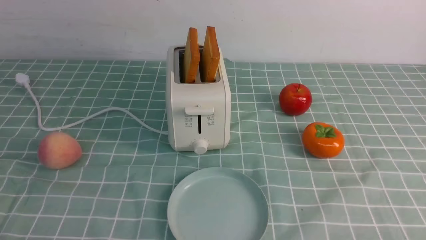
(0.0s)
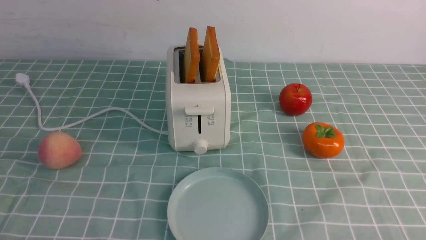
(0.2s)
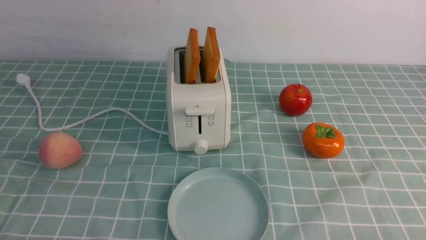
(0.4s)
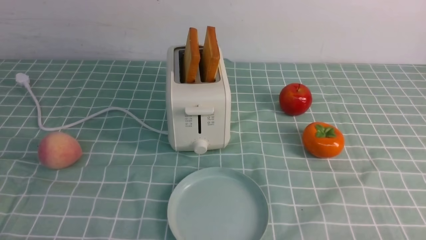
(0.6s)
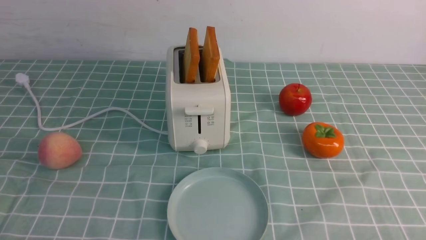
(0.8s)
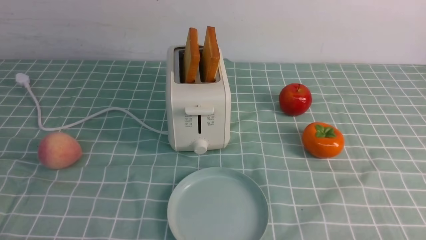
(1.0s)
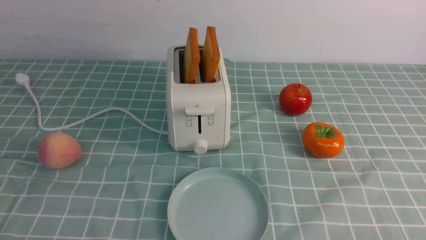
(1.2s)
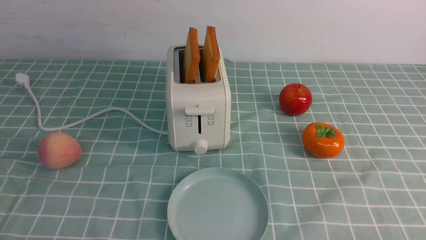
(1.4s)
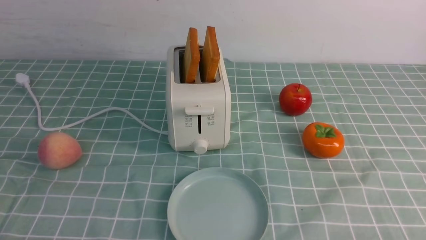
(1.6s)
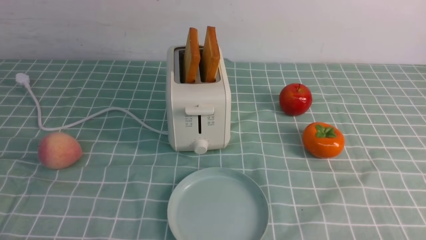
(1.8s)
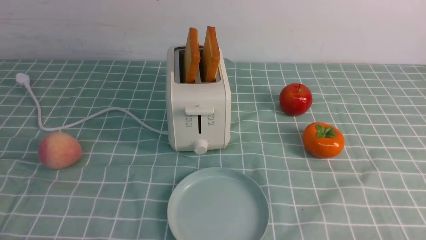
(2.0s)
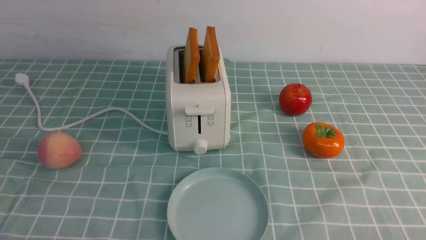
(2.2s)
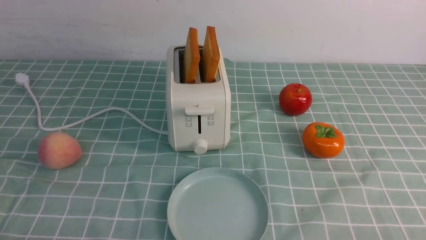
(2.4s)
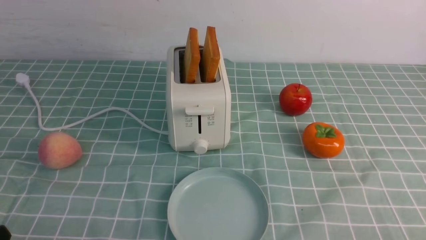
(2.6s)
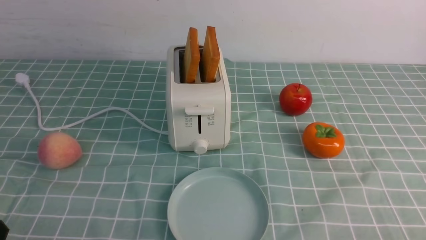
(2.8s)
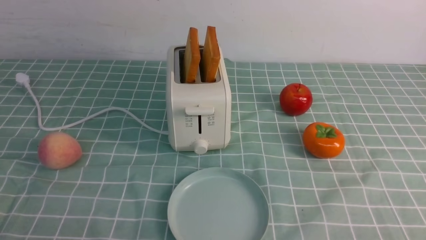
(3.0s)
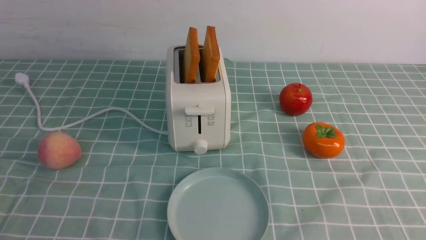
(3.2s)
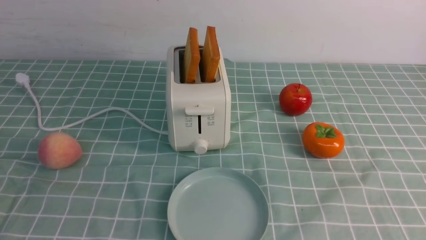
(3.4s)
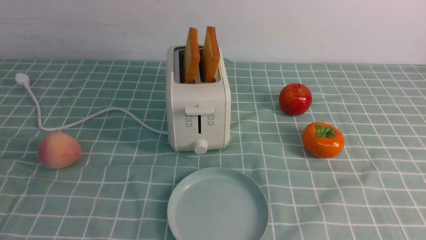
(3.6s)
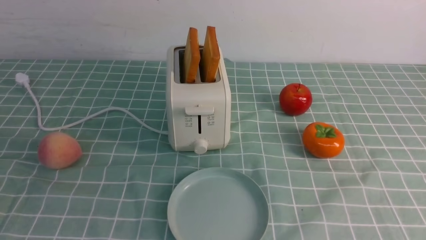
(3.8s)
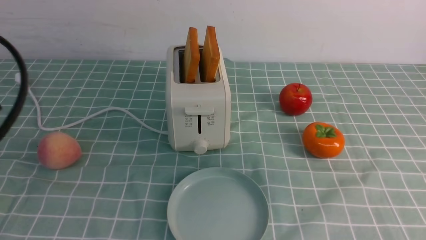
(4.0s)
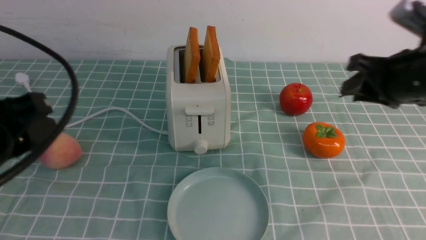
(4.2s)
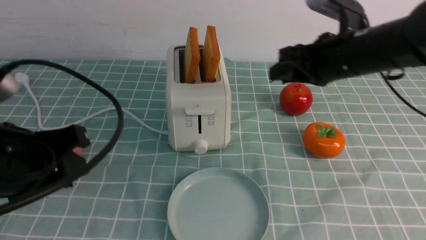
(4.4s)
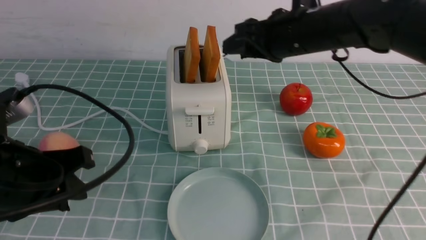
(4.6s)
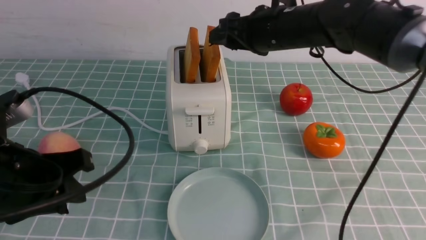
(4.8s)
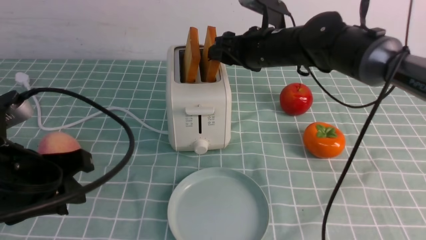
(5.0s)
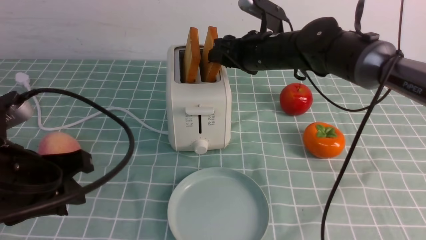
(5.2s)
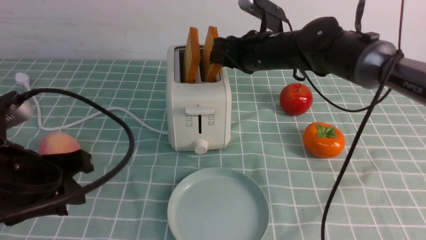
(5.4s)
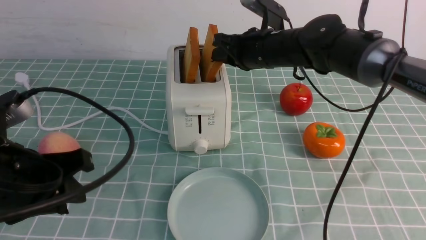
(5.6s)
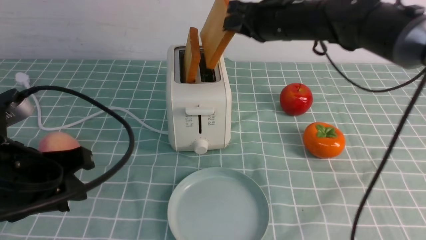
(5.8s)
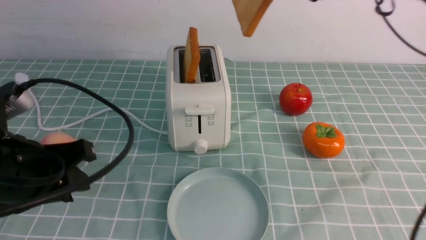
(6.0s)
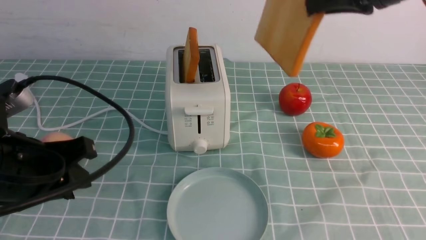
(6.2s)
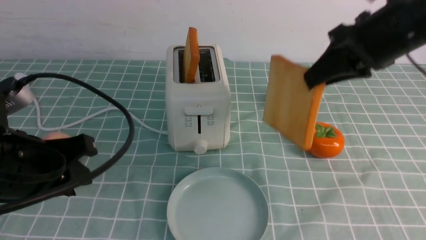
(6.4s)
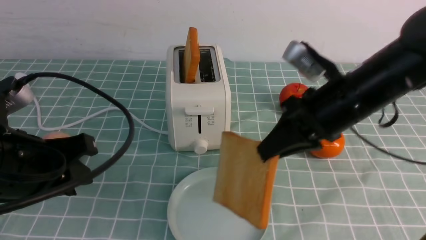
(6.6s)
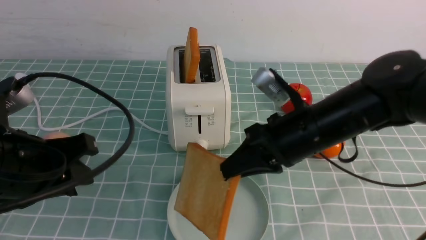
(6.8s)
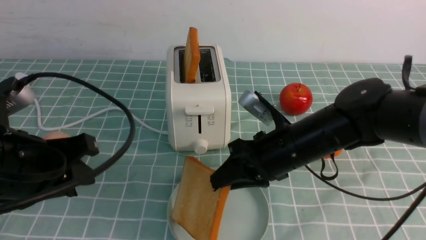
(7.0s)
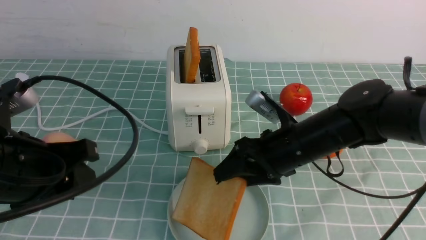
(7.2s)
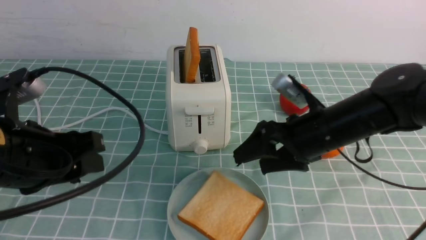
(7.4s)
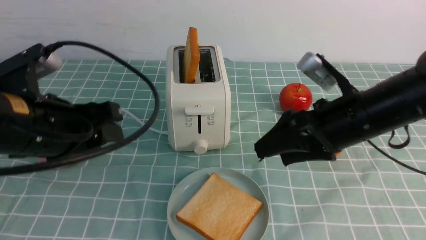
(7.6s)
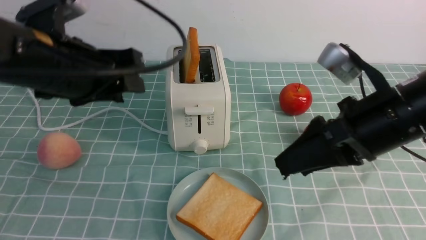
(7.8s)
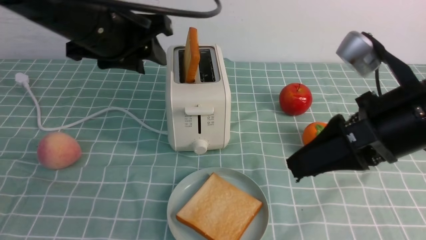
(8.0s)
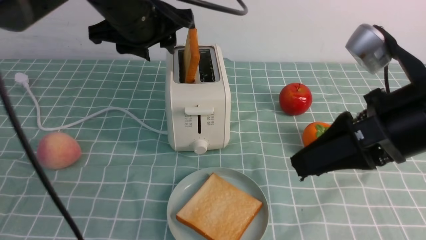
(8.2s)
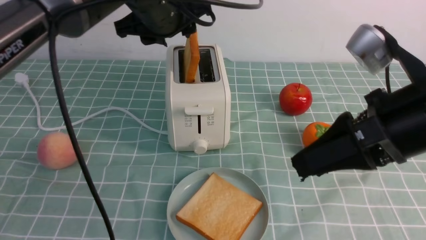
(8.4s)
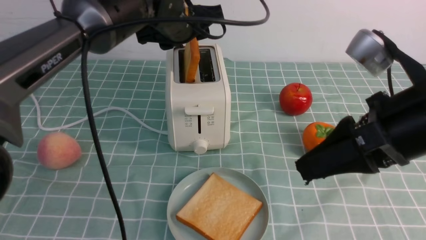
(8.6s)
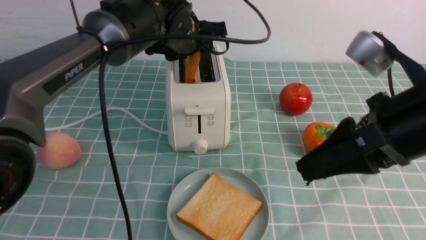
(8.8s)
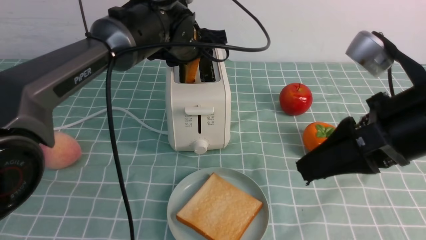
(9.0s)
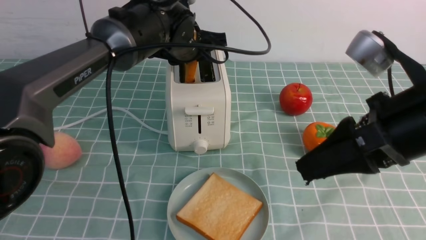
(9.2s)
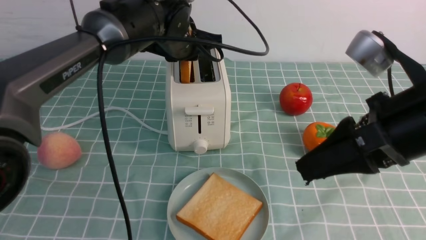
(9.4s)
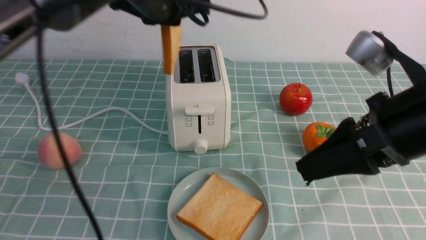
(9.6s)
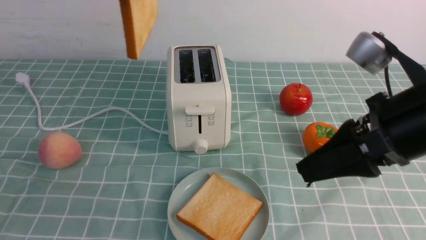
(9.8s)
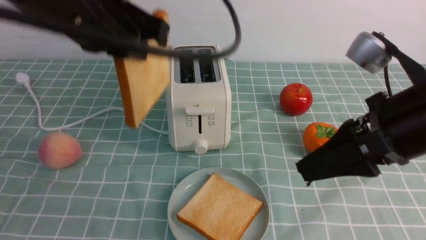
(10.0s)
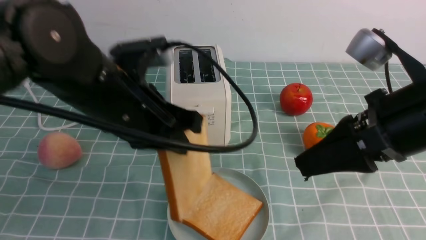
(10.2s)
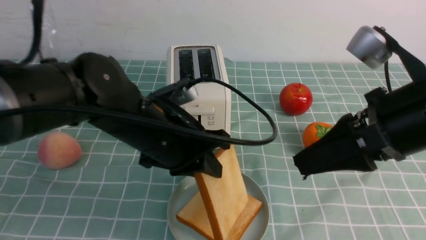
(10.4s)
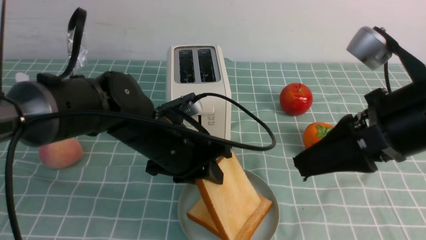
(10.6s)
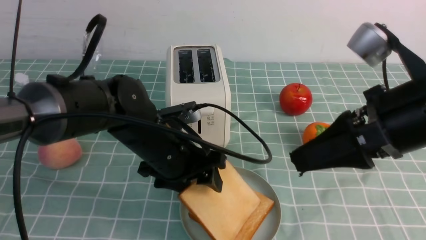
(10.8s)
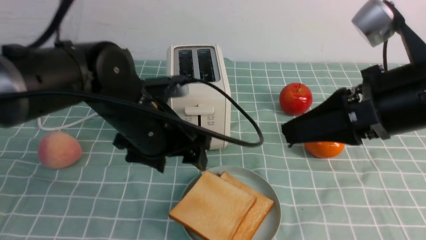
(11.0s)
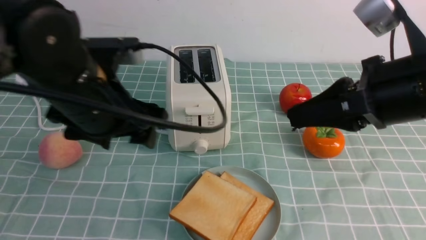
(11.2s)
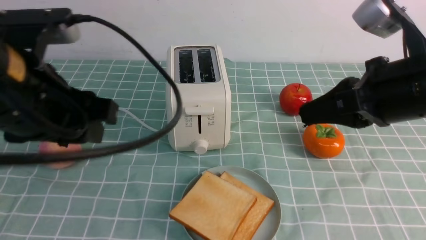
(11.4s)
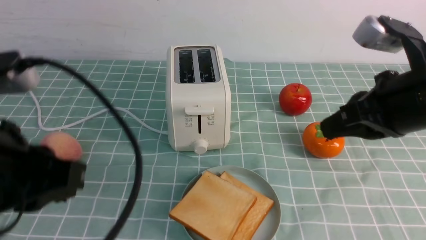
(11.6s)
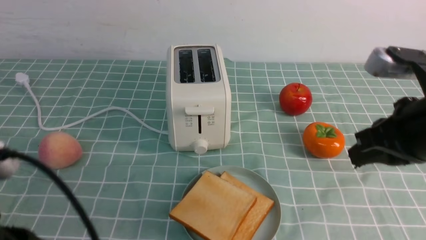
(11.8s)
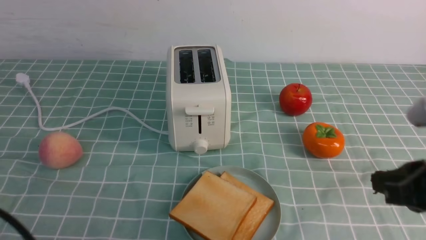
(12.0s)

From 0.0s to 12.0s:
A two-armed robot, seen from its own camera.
Task of the whole recording: take toasted bread from bread machine on blue coffee table place on plate.
Step, from 0.0s to 5.6s: use the right arm to take out a slice of bread.
Step, from 6.0s to 7.4s: use the right arm to put a slice of bread into the plate.
Step, from 7.8s to 9.4s: use the left arm to take out a slice of bread.
Step, from 9.6s to 11.2s: use the left arm to put a slice of bread into the empty plate.
From 0.0s to 1.6s: Both grippers stay about where they are.
From 3.0s to 4.4s: The left gripper travels forward, upward and to the right by approximately 15 cm; the right gripper is displaced forward and to the left by approximately 35 cm.
From 4.4s to 6.0s: The right gripper shifts about 5 cm upward.
From 6.0s to 7.6s: The right gripper goes about 15 cm downward and backward, and opens. Meanwhile the left gripper shifts about 5 cm forward.
From 7.6s to 9.0s: The left gripper is displaced forward and to the right by approximately 25 cm; the right gripper goes roughly 10 cm backward and upward.
From 9.0s to 10.4s: The left gripper is displaced backward by roughly 15 cm, and closes its fingers.
From 10.4s to 12.0s: The left gripper moves backward and to the left, about 25 cm, and opens, then closes again; the right gripper heads downward, to the right and backward, covering some 10 cm, and closes up.

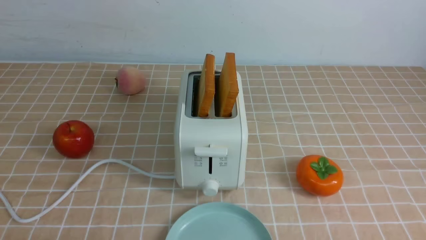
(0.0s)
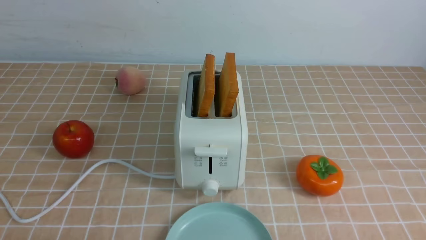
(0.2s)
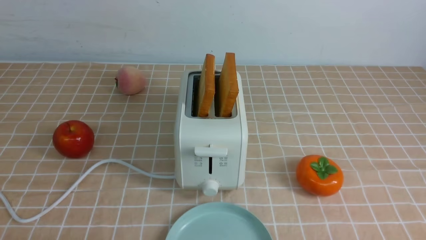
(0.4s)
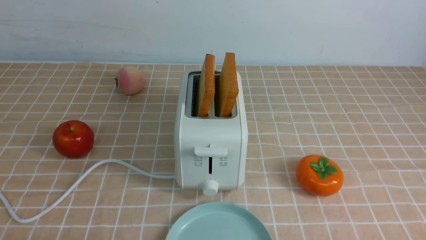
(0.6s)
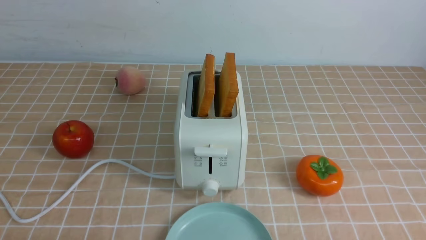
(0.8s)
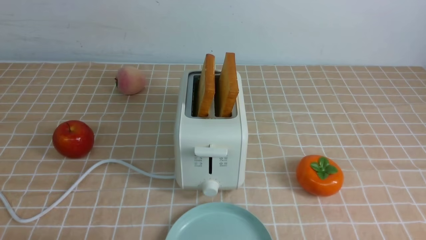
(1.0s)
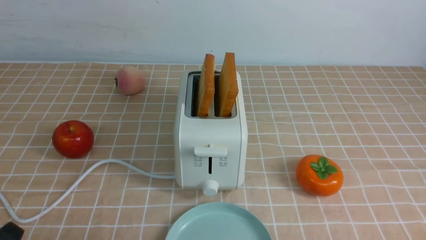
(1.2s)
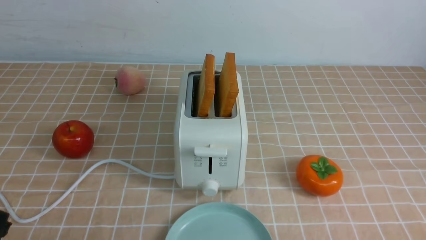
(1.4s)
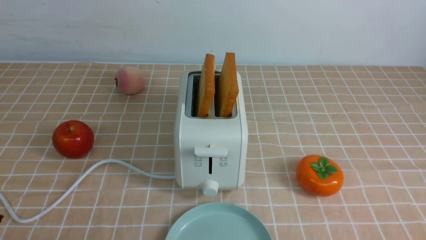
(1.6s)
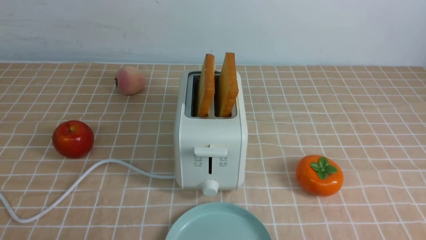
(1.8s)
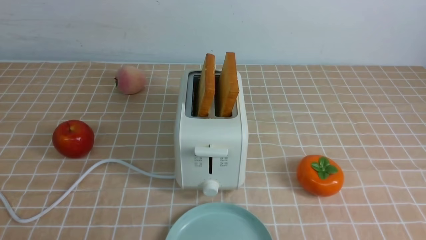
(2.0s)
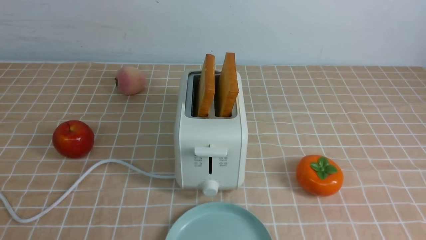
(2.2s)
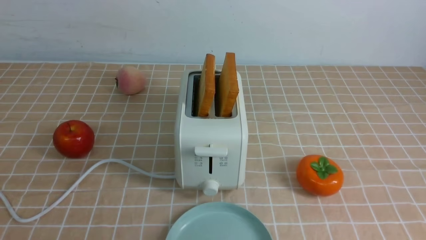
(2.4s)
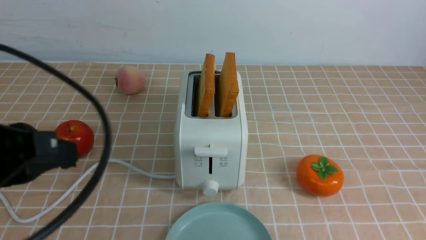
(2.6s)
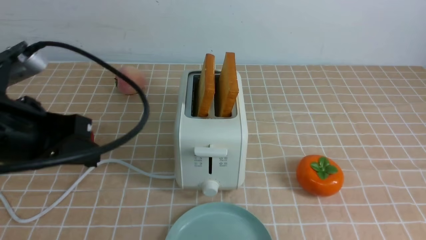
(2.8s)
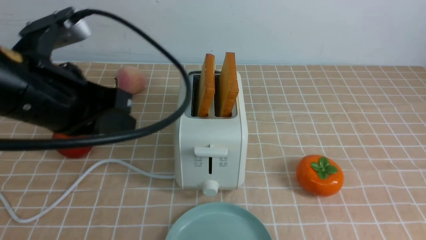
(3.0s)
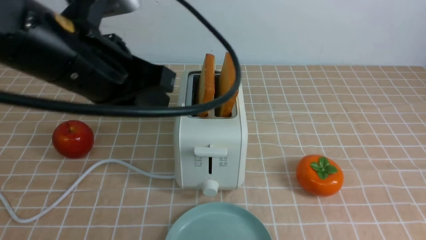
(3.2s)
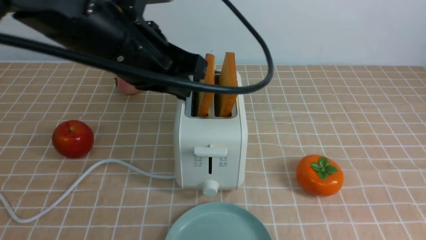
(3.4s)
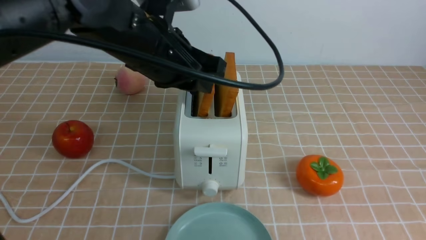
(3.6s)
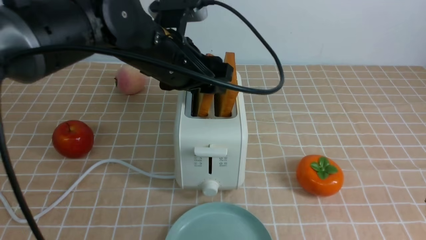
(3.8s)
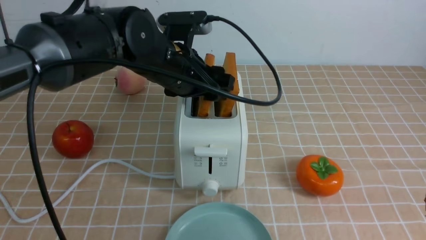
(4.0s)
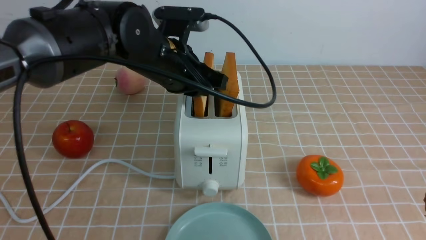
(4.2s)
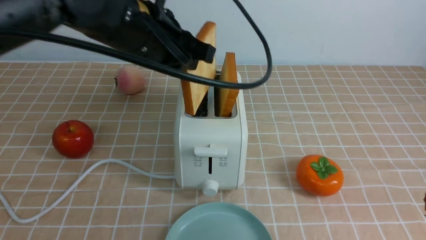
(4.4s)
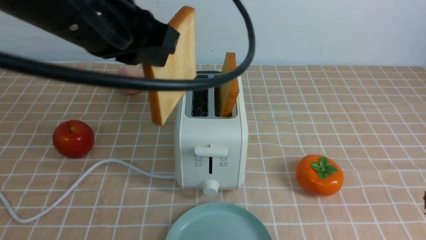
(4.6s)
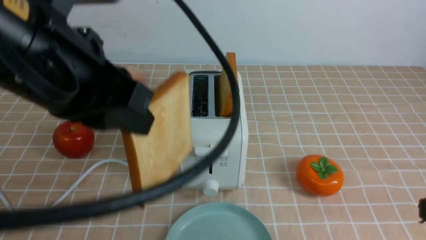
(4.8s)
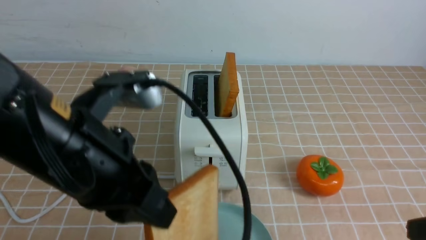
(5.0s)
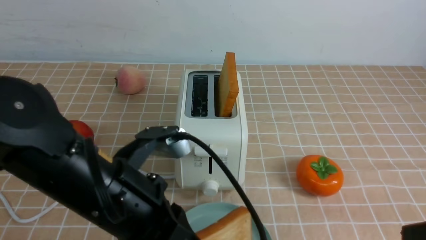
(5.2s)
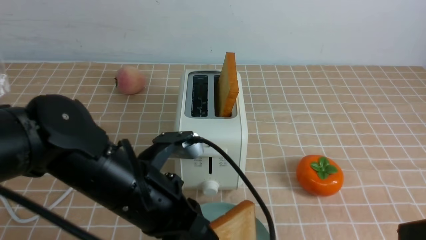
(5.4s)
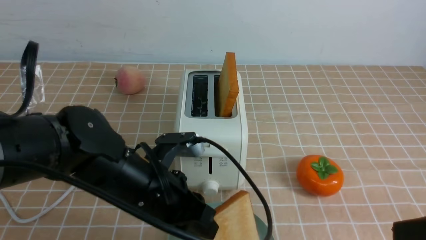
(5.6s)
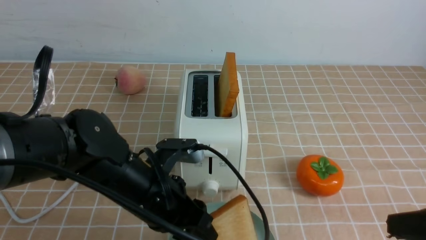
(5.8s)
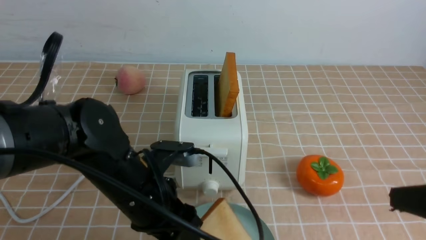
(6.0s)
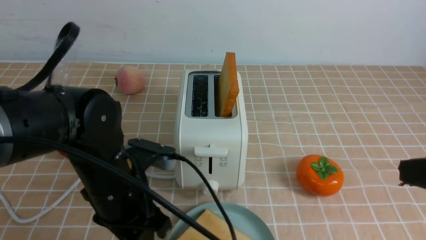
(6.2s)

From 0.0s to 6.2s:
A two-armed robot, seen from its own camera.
Task of the whole recording: take toasted bread from bread machine on light coffee tablecloth place on plate.
Step, from 0.0s to 4.4s: use the left arm to take out a slice of bread.
From 1.6s to 3.2s: The right gripper is displaced upward and forward by roughly 15 cm, and closes its fingers, while the left gripper goes about 30 cm forward, upward and to the right, and closes its fingers.
From 3.2s to 4.6s: The left gripper moves approximately 10 cm forward and comes back, and opens and closes again.
From 4.6s to 6.2s: The left gripper moves downward, about 20 cm, and opens.
